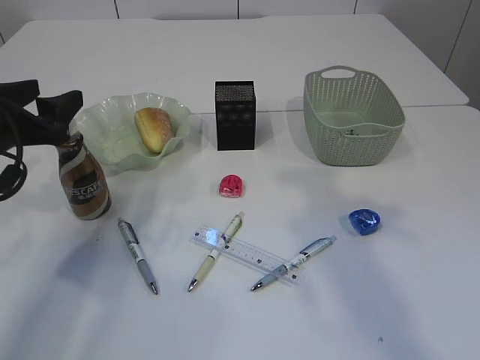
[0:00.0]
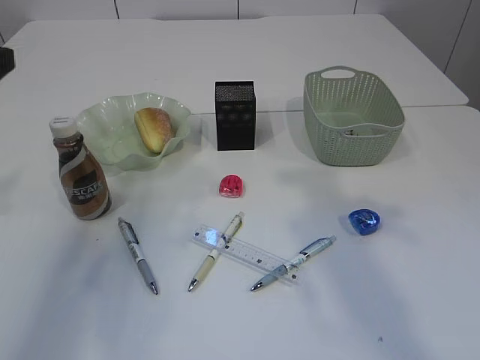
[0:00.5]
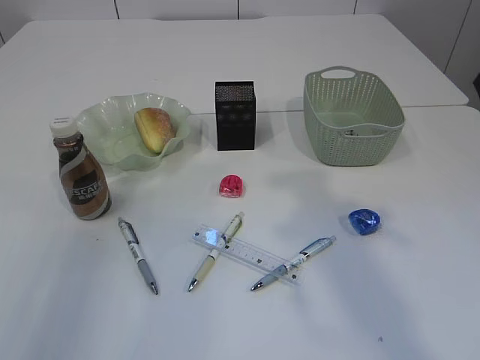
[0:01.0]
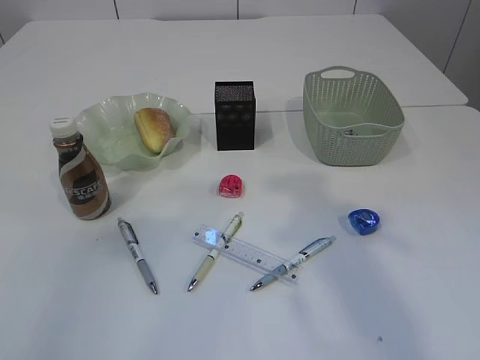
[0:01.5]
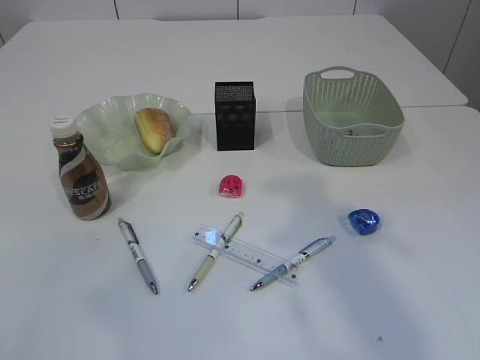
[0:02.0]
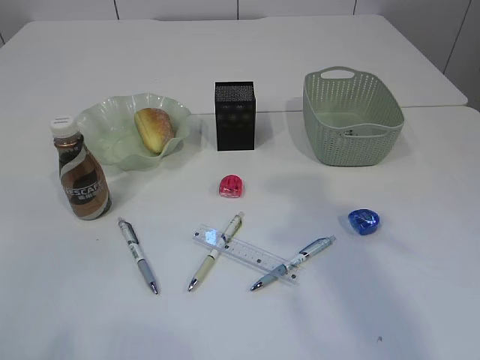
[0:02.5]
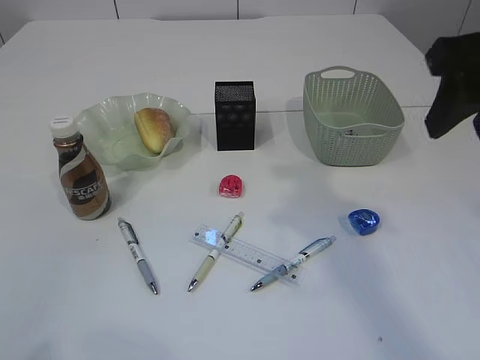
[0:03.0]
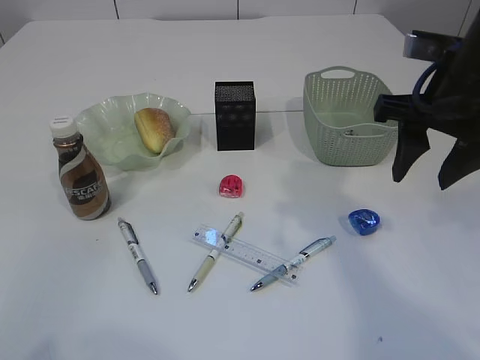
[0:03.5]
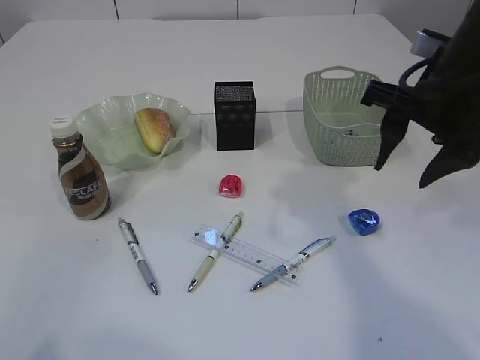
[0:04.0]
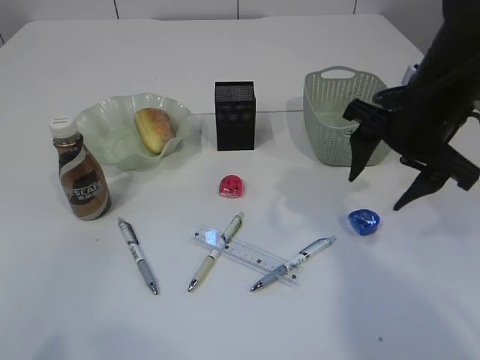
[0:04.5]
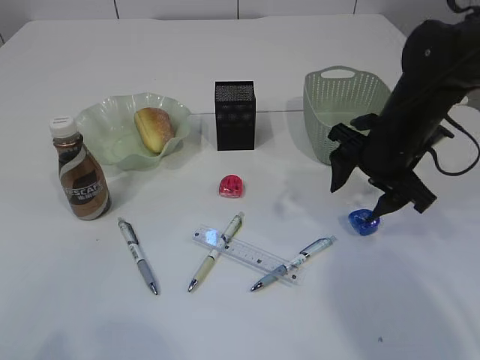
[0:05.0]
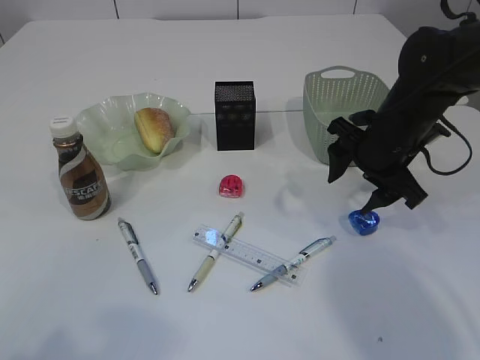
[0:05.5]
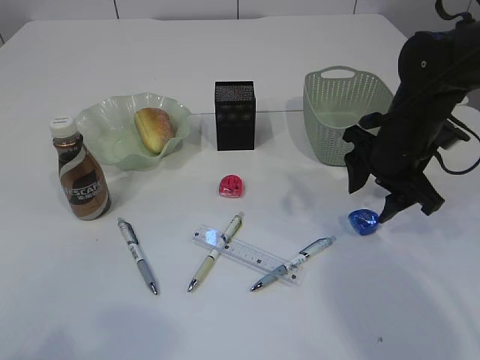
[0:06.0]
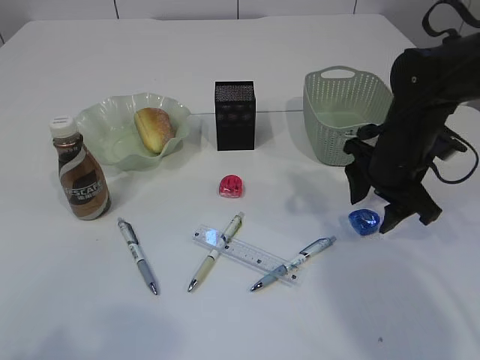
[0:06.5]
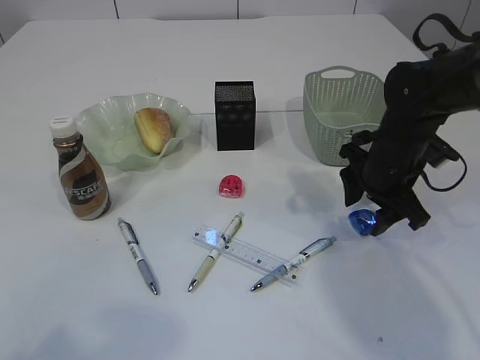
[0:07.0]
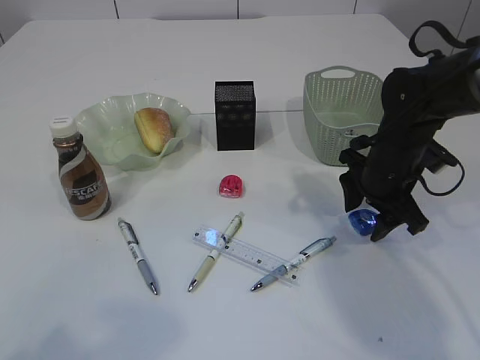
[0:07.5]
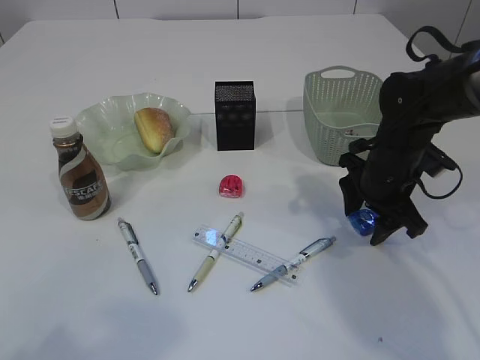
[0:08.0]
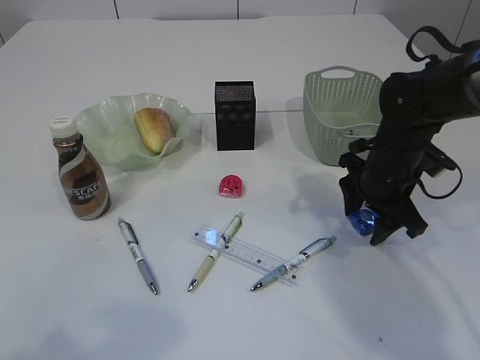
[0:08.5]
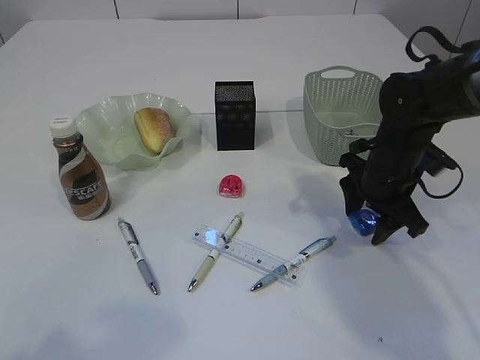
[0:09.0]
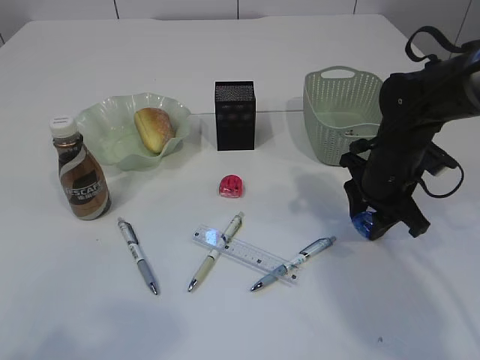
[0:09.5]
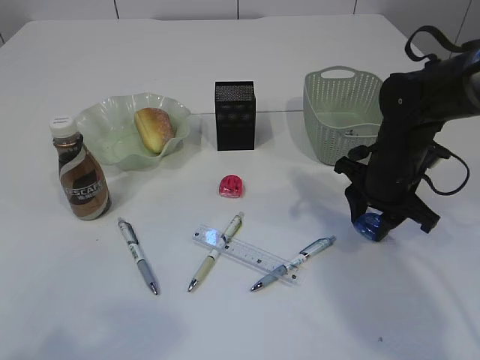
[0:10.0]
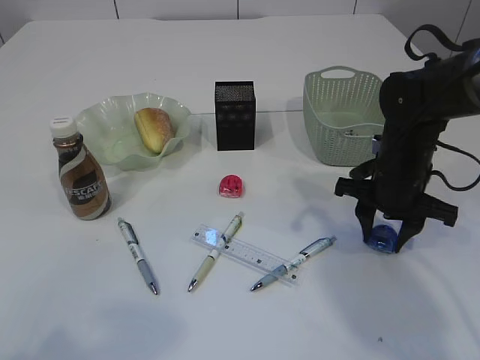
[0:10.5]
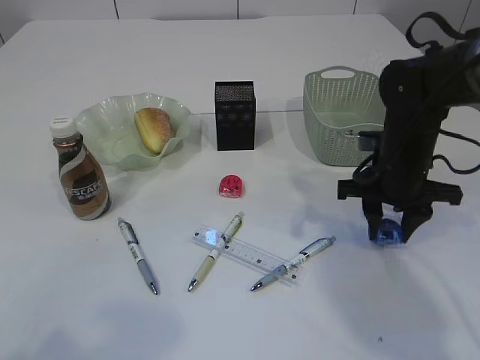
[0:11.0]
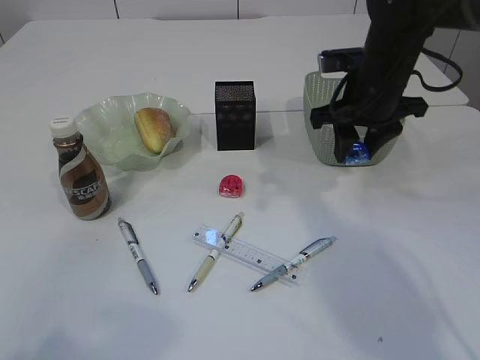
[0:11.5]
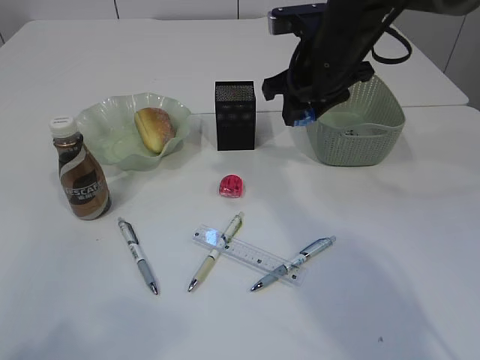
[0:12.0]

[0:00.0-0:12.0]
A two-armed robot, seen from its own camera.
Step, 0:00.5 to 0:11.0: Pick up the blue pencil sharpener.
0:00.0 to 0:02.0: The left gripper is displaced backward and upward by approximately 35 cm.
0:02.0 to 0:04.0: The right gripper heads downward and forward, covering about 15 cm.
0:04.0 to 0:06.0: The right gripper goes some 10 cm downward and forward.
0:06.0 to 0:08.0: There are only small adjustments of the grippers.
0:08.0 to 0:10.0: The right gripper closes up.
0:10.0 to 0:12.0: The right gripper is displaced upward and to the left by about 15 cm.

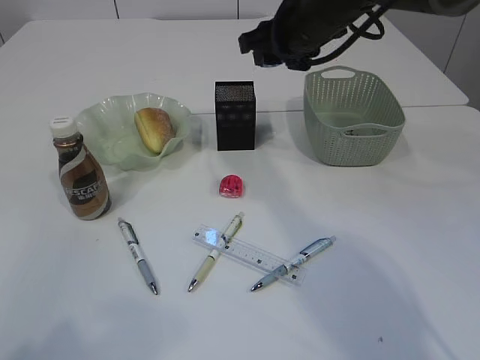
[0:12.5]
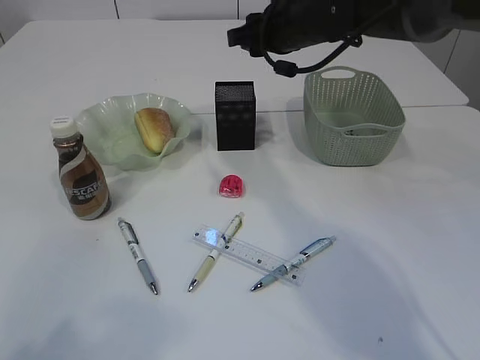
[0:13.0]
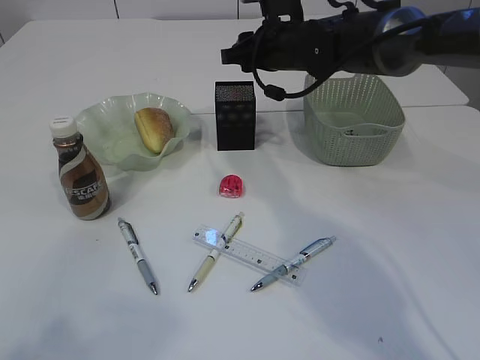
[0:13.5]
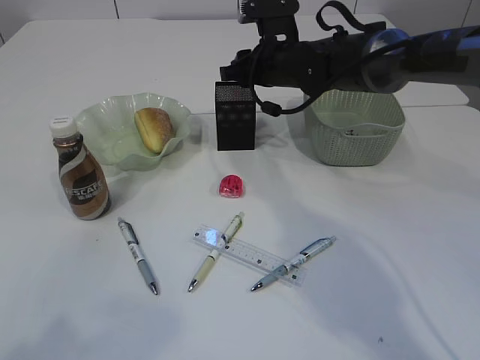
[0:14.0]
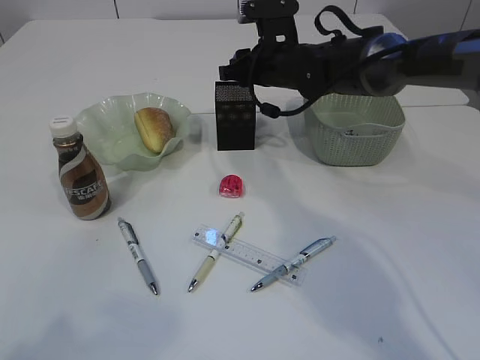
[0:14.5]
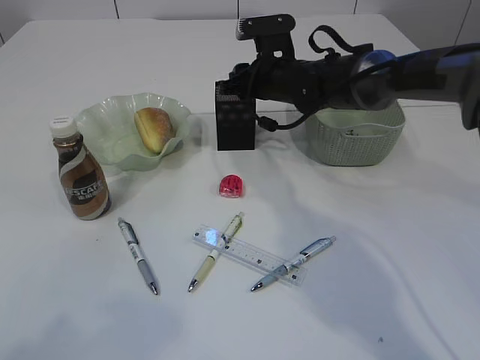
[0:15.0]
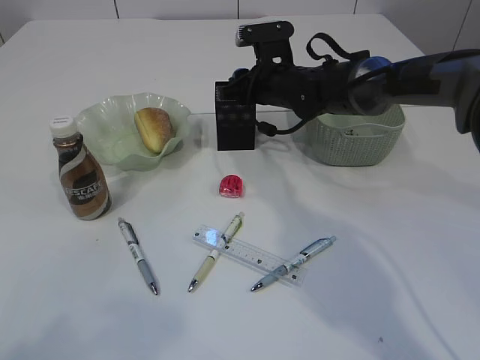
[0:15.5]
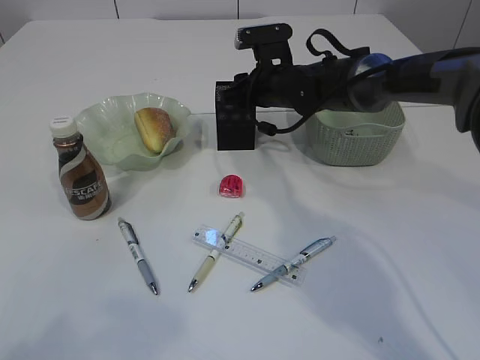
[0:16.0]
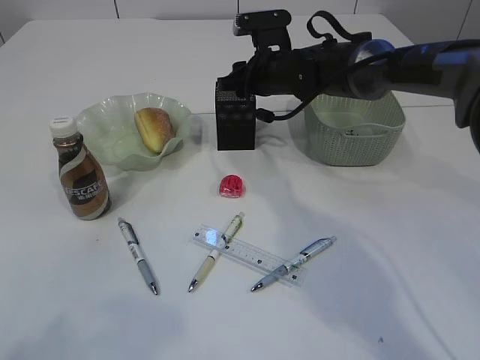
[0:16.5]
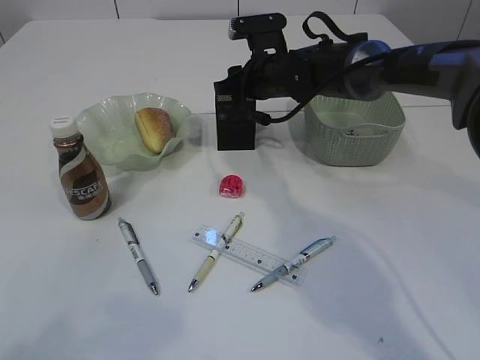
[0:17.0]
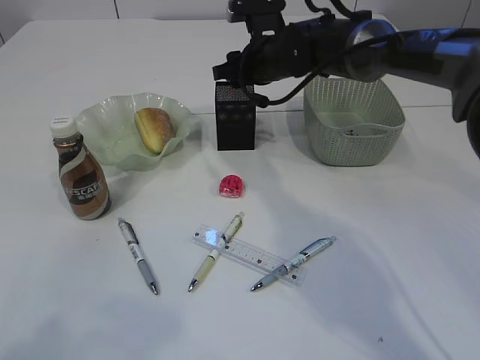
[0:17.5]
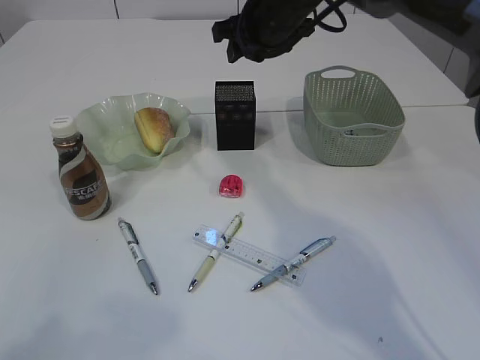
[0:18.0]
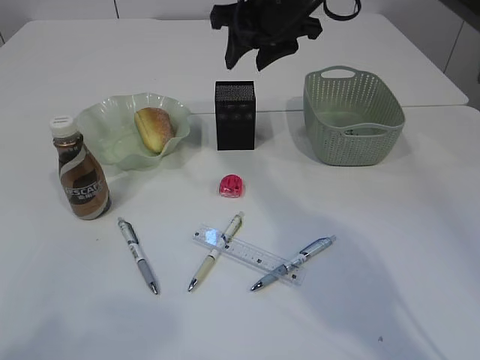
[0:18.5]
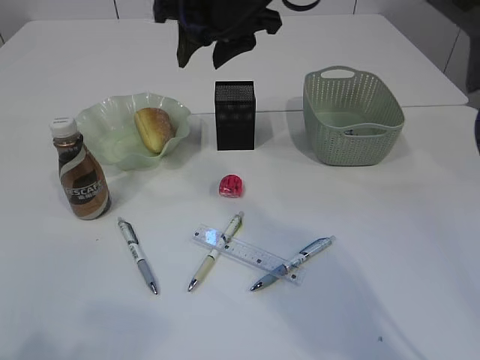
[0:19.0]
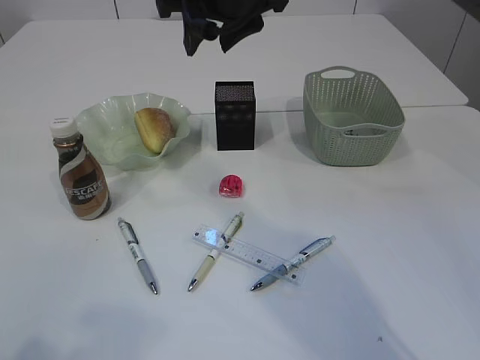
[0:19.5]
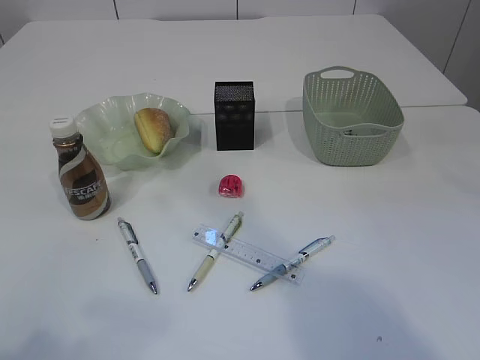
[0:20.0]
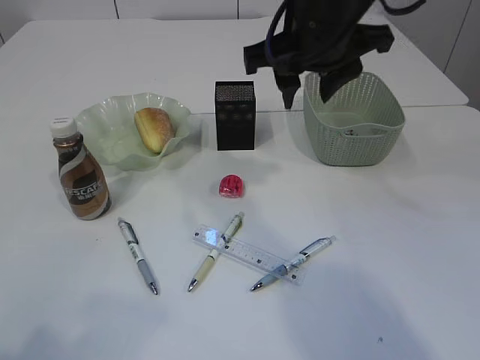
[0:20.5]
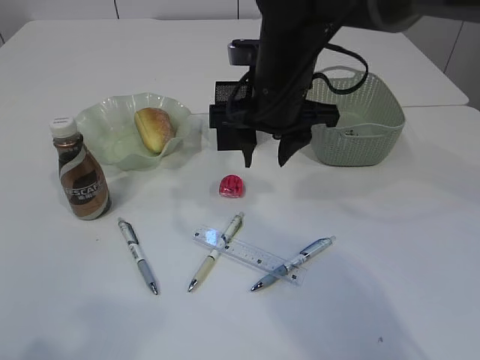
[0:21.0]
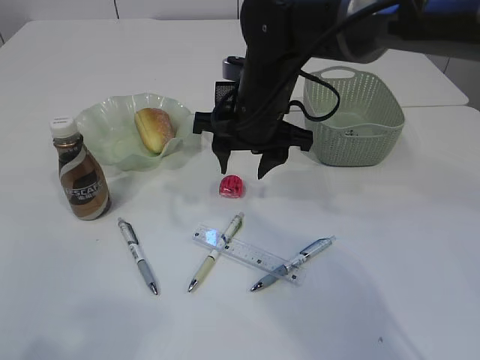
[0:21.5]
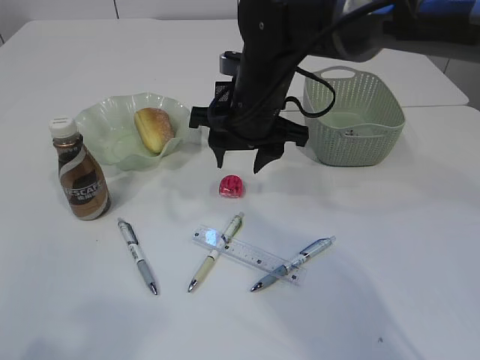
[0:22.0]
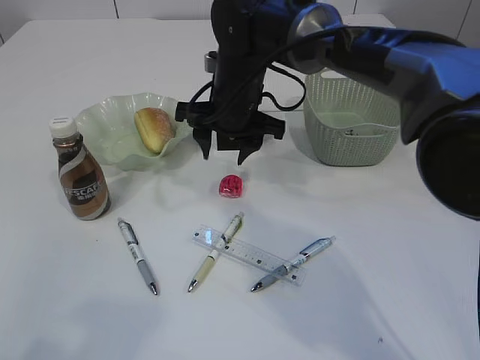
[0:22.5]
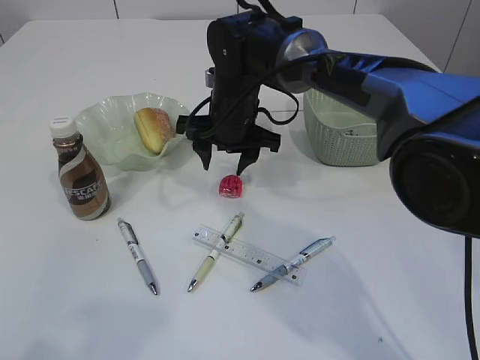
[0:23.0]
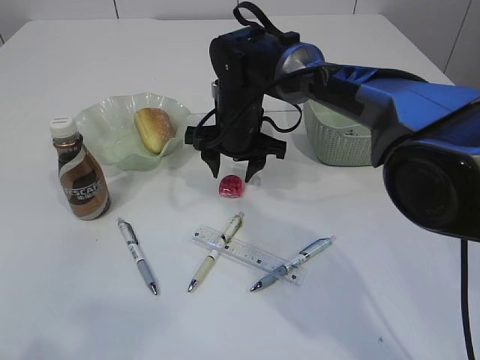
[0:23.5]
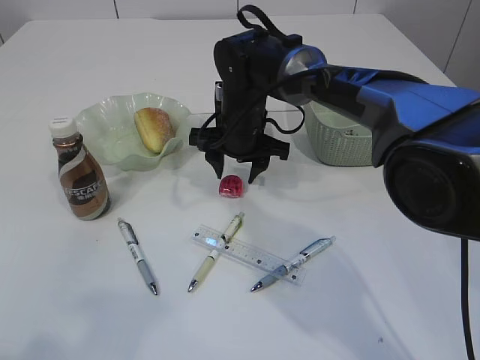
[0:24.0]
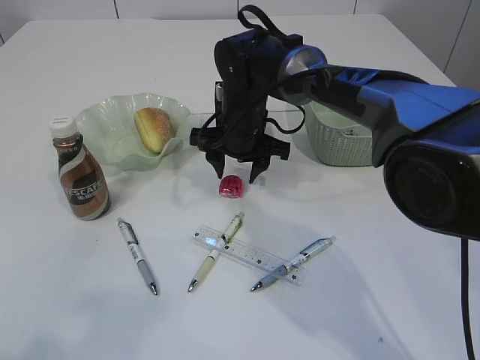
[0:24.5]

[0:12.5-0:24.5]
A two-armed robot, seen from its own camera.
Step, 0:12.5 to 0:17.5: Place the blue pencil sharpener into the pen holder.
0:12.5 to 0:14.5: The right gripper moves downward and forward, roughly 10 cm.
0:14.5 to 0:16.5: There are only small adjustments of the grippers.
0:16.5 to 0:18.5: The right gripper goes some 15 cm upward and backward.
0:18.5 to 0:20.5: The right gripper is displaced backward by some 10 cm, and goes upward and returns, roughly 15 cm each way.
0:20.5 to 0:22.5: The right gripper is displaced downward, forward and to the left by approximately 15 cm.
0:22.5 to 0:24.5: The right gripper is displaced downward by approximately 5 cm.

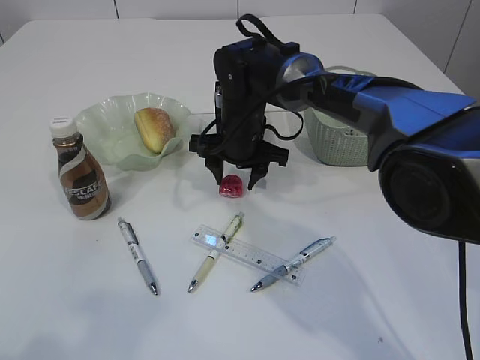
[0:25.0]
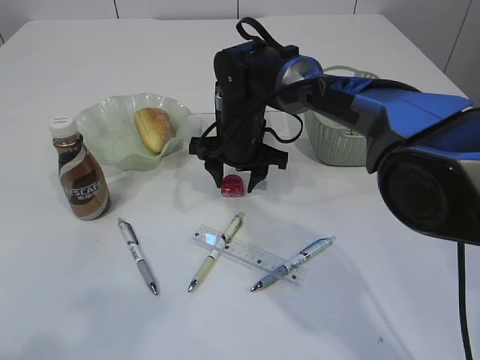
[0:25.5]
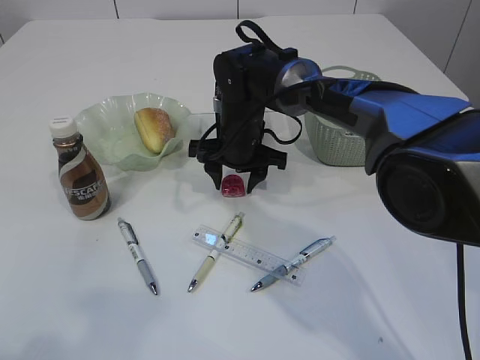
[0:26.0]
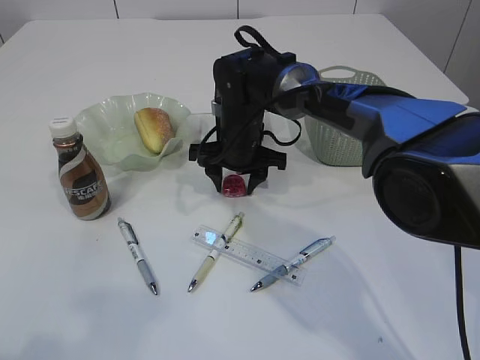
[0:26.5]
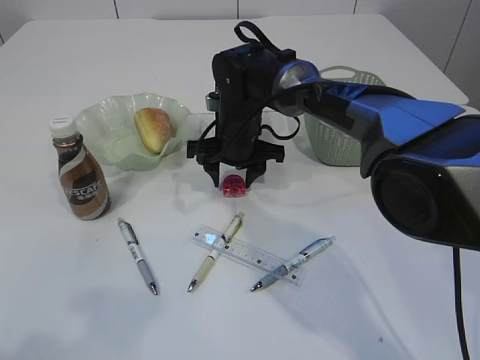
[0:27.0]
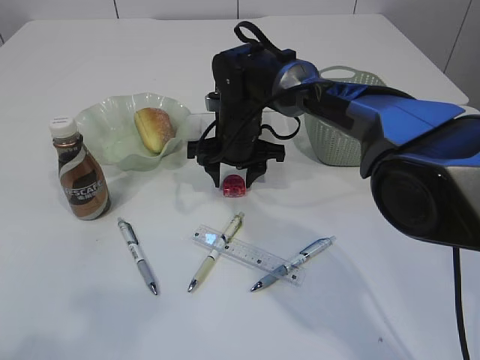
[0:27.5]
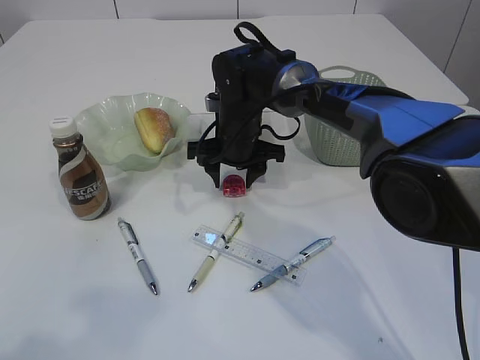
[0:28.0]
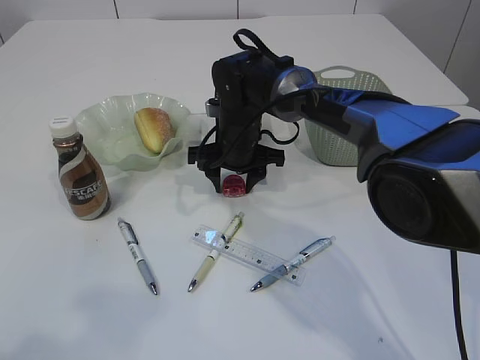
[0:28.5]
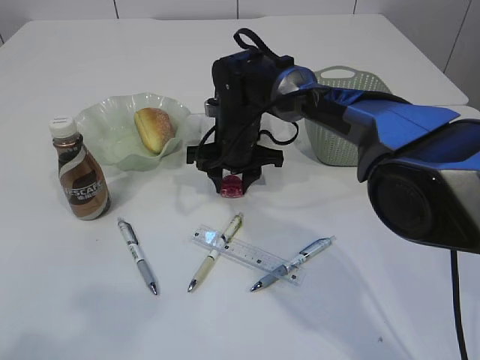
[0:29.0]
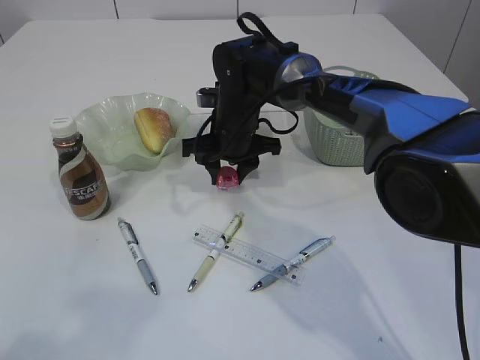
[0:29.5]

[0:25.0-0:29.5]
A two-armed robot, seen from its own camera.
0:25.0 to 0:29.5: The grippers stay close to where they were, moving slightly.
